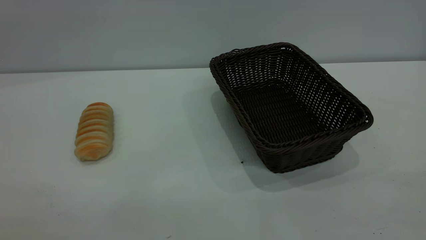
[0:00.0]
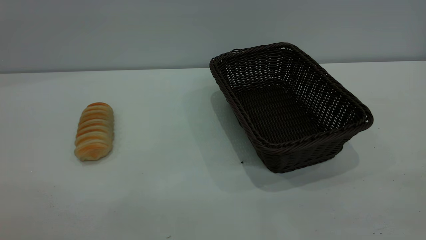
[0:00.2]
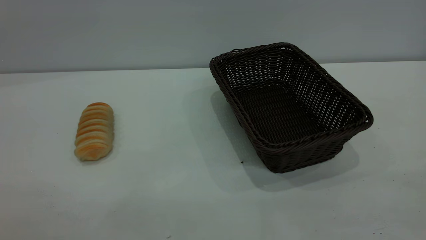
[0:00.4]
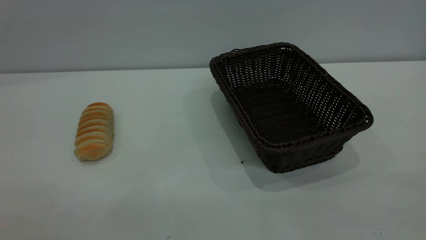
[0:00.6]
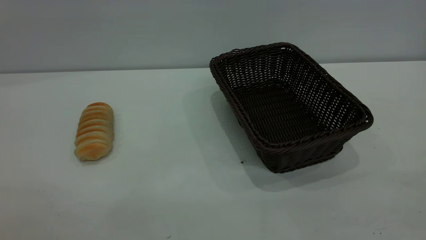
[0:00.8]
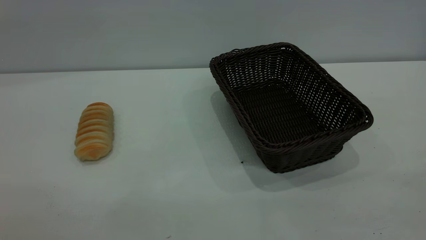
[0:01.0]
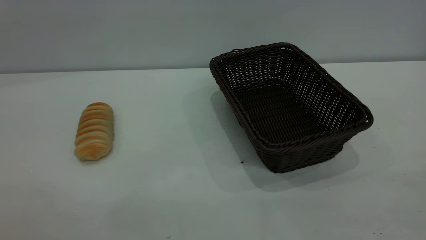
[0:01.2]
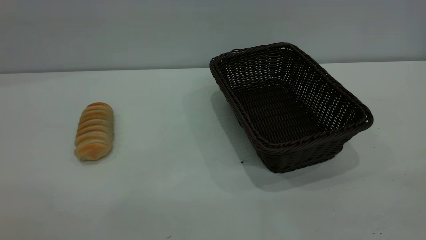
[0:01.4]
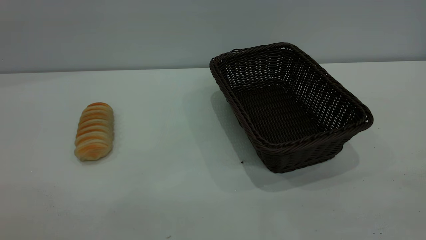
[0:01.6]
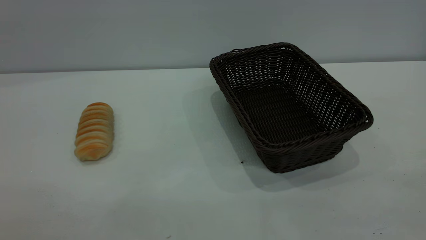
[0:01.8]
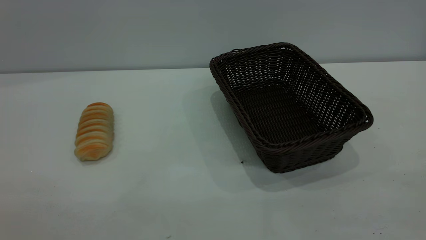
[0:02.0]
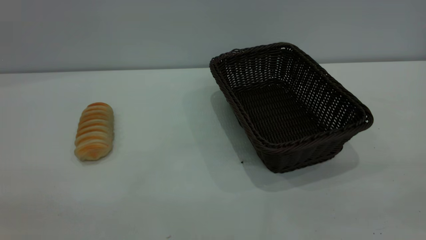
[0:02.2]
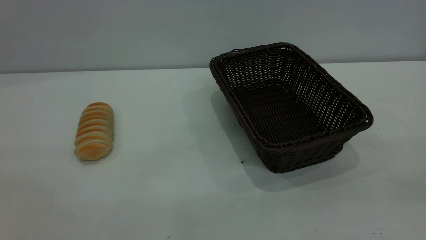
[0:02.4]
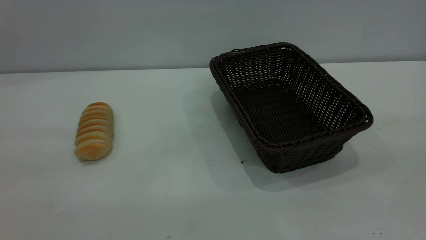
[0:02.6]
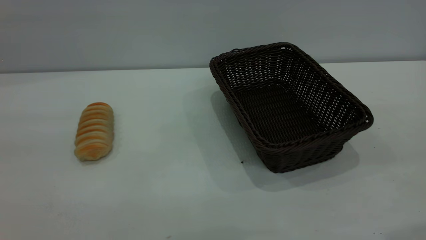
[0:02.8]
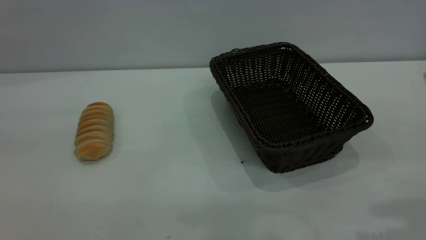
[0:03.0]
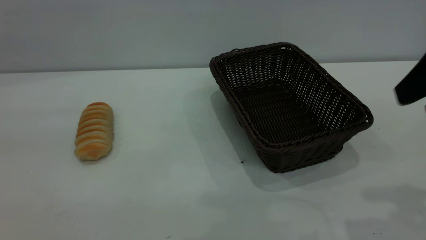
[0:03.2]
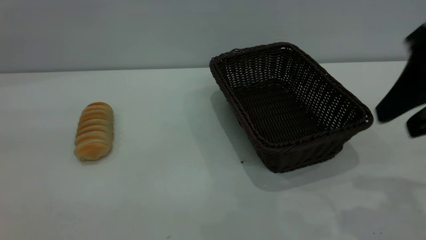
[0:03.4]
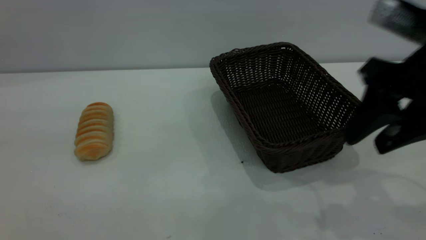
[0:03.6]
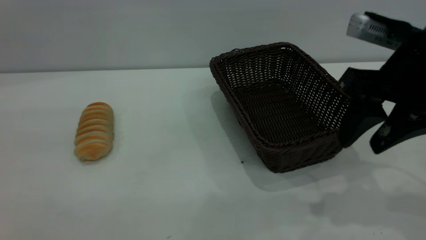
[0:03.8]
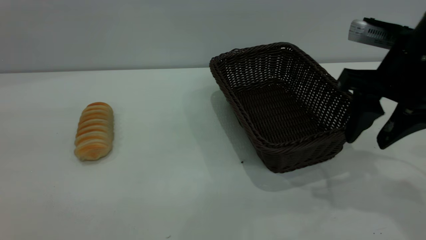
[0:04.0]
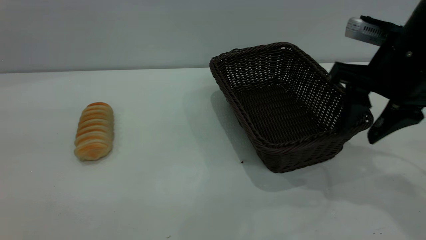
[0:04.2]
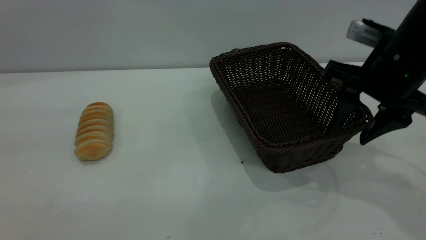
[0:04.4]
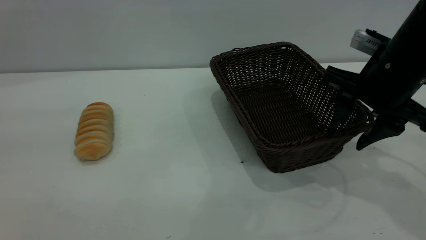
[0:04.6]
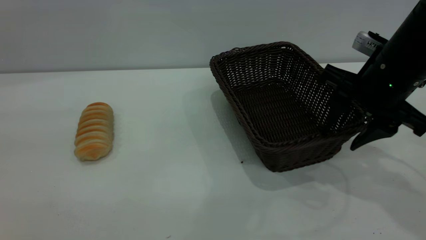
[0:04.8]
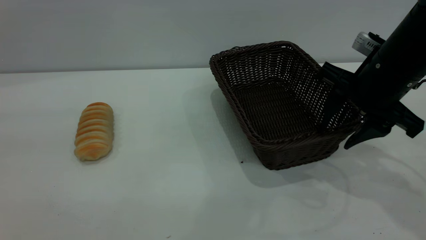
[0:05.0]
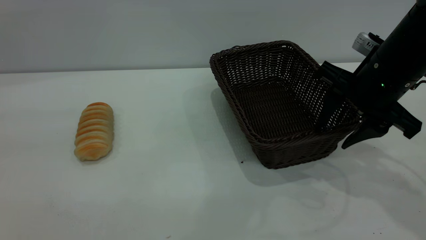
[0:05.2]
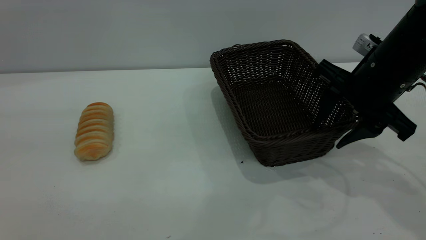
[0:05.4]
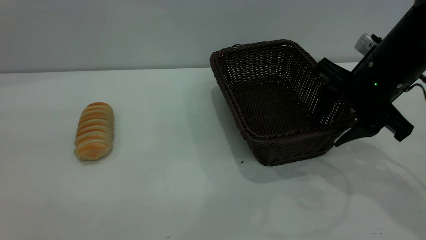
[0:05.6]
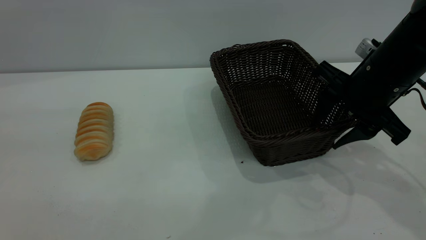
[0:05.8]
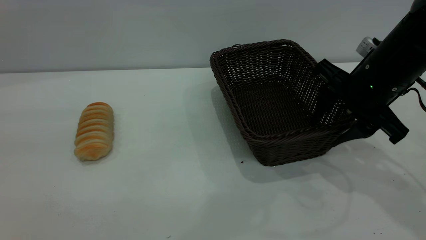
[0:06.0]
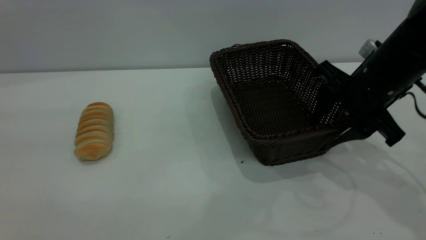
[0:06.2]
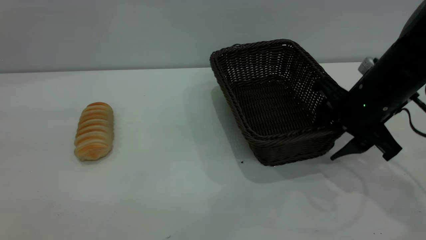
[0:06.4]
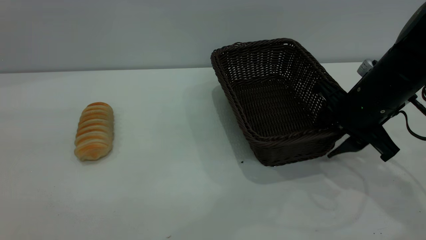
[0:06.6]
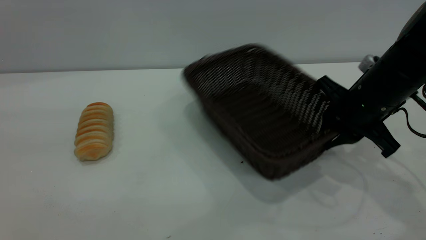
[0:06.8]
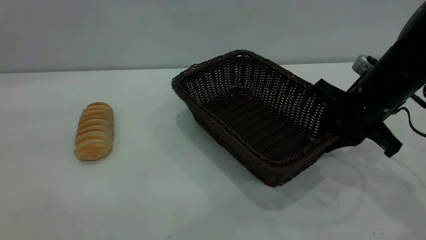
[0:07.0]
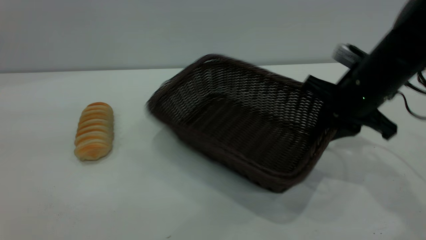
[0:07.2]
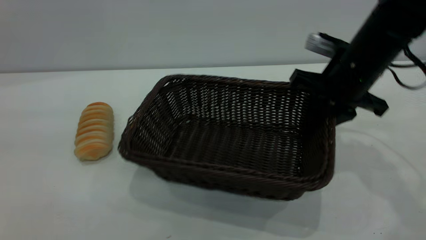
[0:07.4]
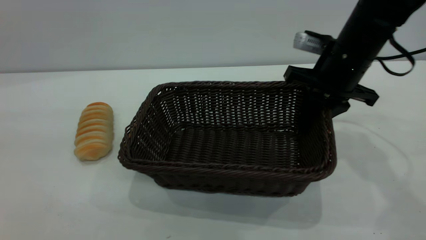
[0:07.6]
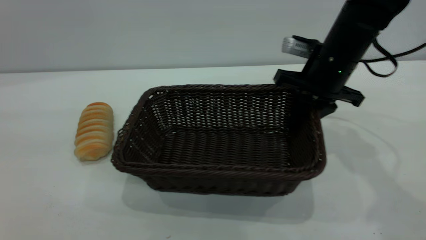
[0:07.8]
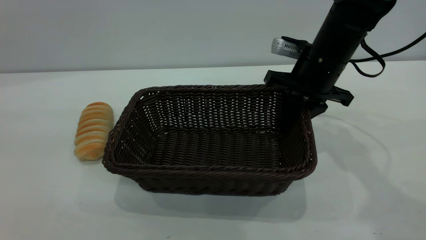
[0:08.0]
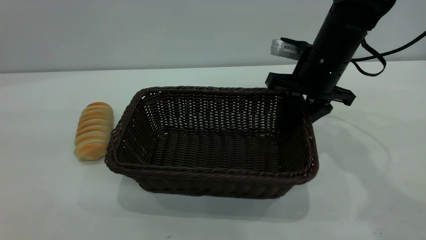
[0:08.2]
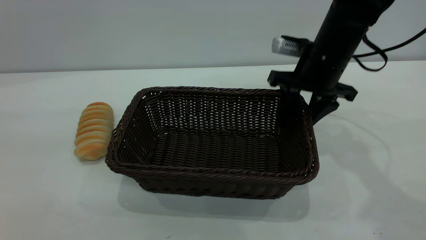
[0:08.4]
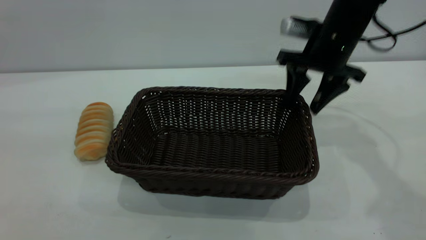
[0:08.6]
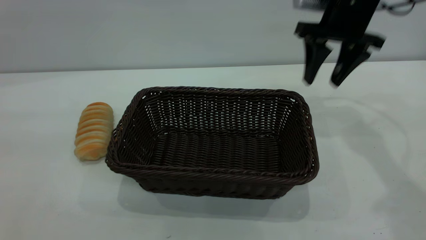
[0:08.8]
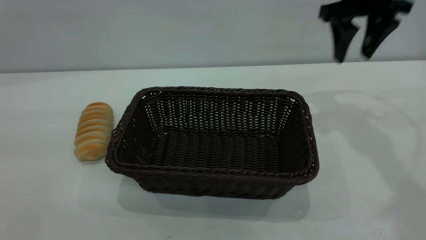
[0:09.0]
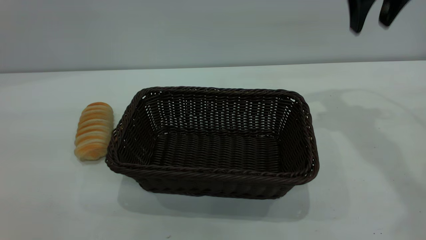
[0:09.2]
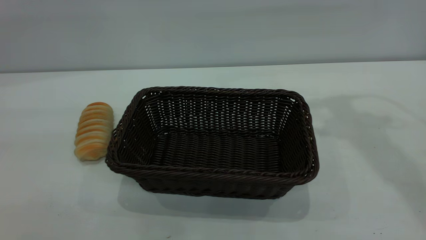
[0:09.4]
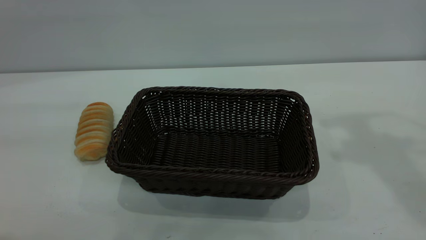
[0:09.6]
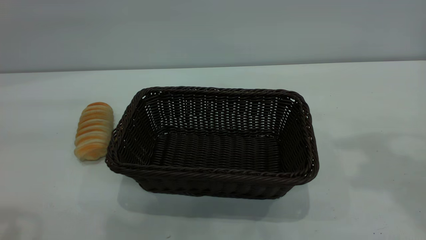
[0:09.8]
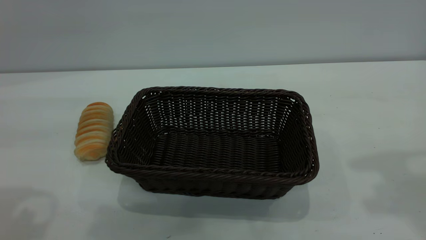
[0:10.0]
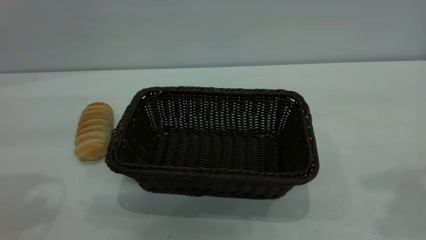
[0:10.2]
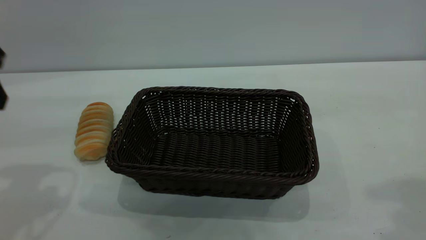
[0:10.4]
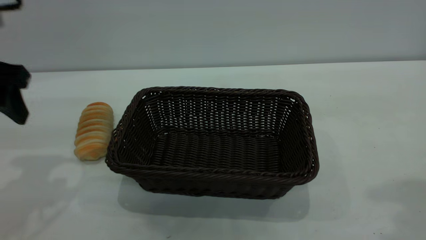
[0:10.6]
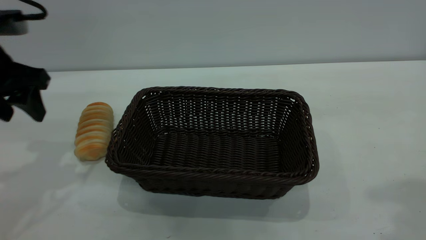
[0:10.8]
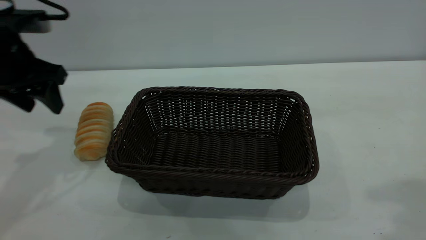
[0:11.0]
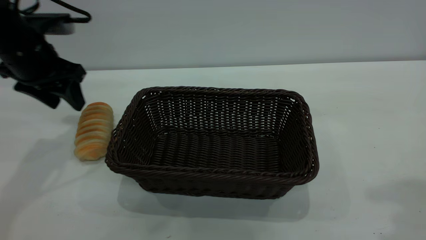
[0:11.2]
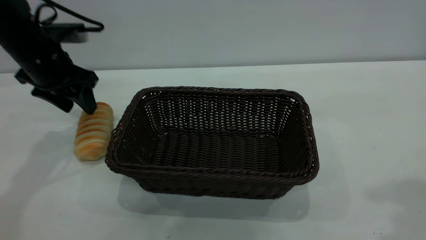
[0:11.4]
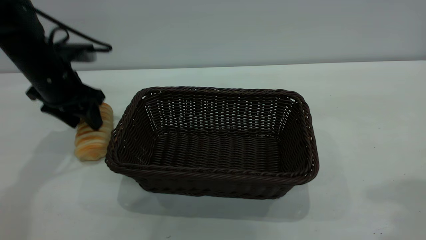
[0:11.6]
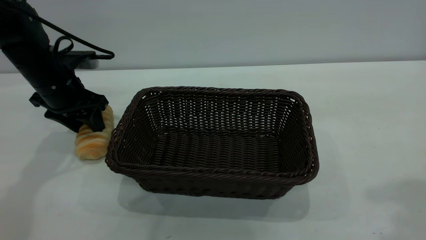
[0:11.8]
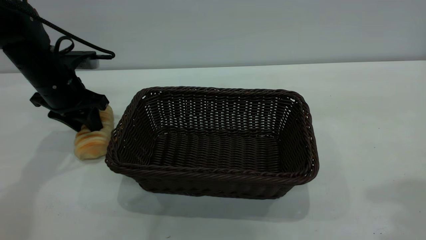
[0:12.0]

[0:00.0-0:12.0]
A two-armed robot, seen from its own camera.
Task of the whole recording: One hand grasps the black basket and places it in the middle of the table, while the other hand picks up the long bread and puts it into the black basket.
Step, 0:00.0 to 0:08.6: Move the basket to the center of view.
0:00.0 to 0:01.6: Neither gripper changes place.
0:03.0 to 0:04.4: The right gripper heads forward and downward, covering roughly 15 cm.
0:06.0 to 0:07.6: The right gripper travels forward by about 5 cm, and closes up.
0:07.6 to 0:09.0: The right gripper shifts approximately 10 cm upward and forward, and opens its fingers.
0:09.0 to 0:10.4: The left gripper shifts some 25 cm forward and downward. Meanwhile the right gripper heads backward and upward, covering approximately 30 cm.
0:10.4 to 0:12.0: The left gripper moves forward and downward, about 20 cm, and closes its fingers.

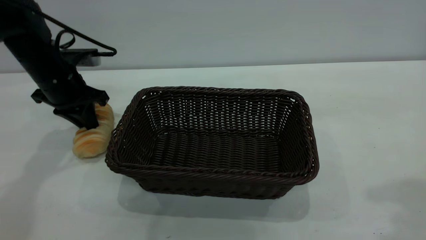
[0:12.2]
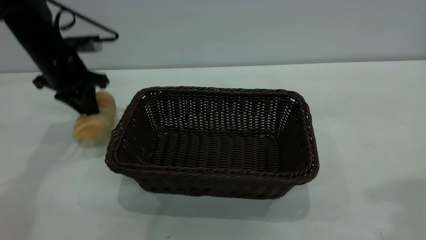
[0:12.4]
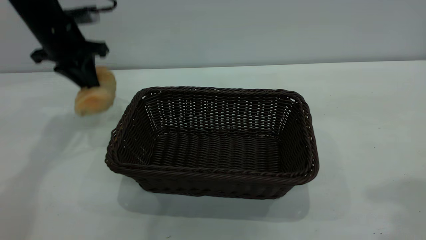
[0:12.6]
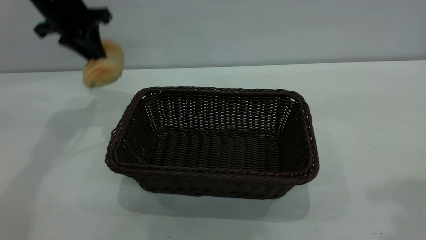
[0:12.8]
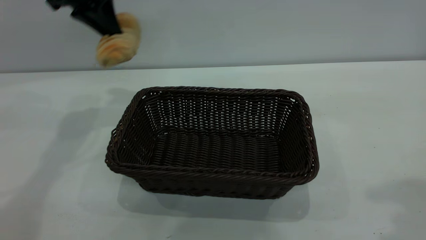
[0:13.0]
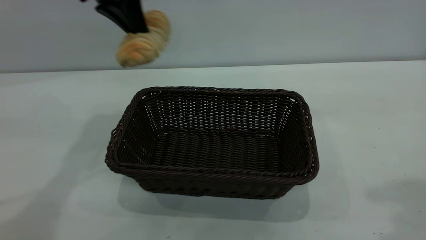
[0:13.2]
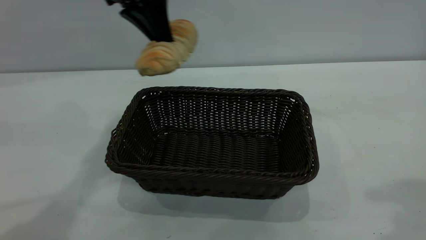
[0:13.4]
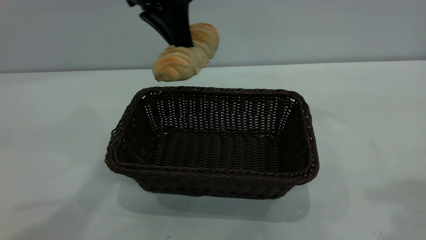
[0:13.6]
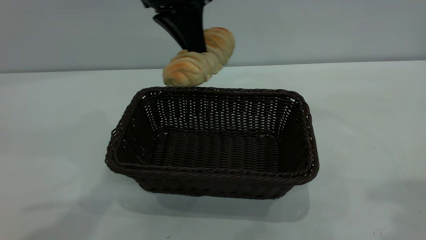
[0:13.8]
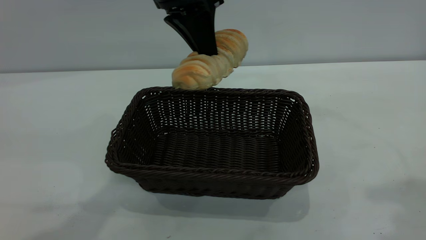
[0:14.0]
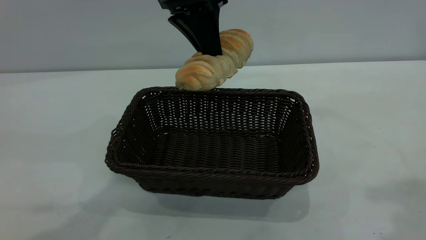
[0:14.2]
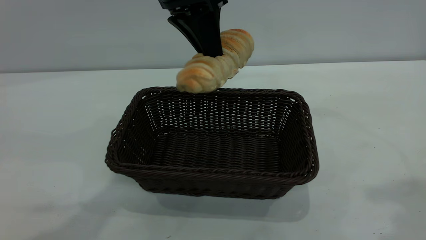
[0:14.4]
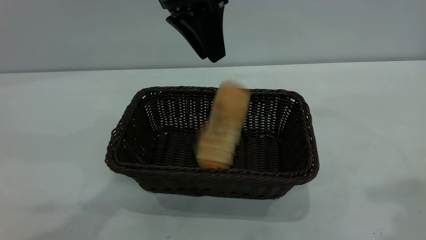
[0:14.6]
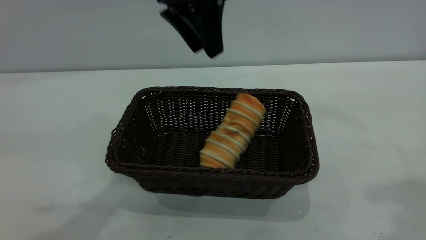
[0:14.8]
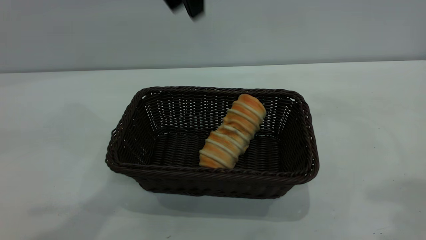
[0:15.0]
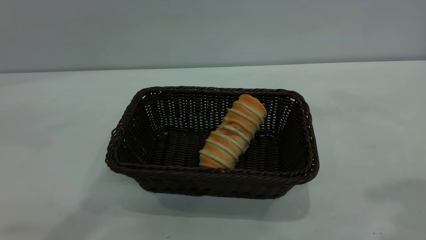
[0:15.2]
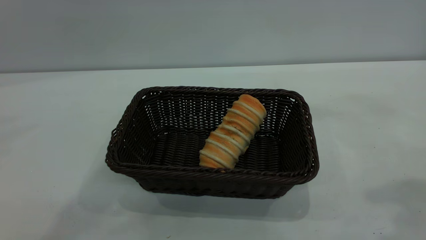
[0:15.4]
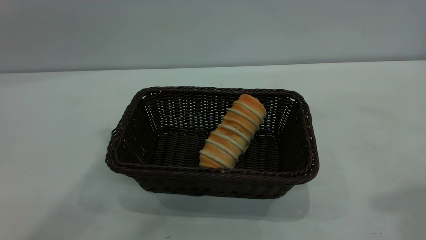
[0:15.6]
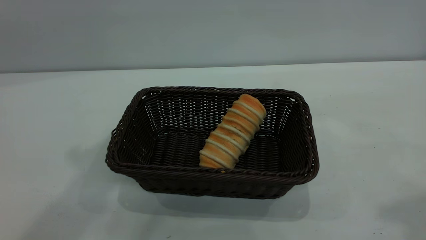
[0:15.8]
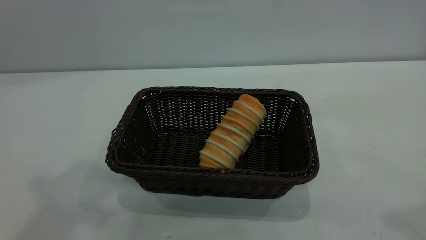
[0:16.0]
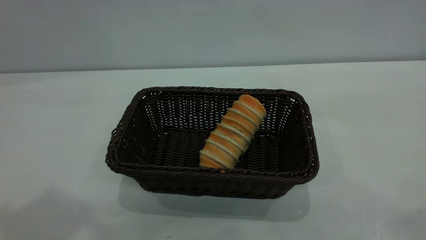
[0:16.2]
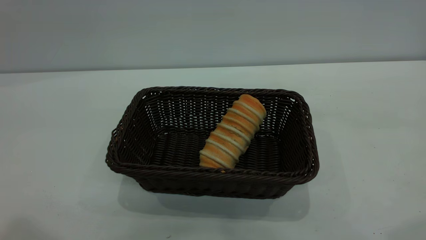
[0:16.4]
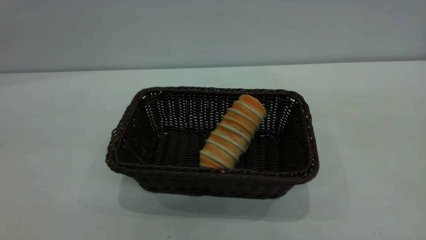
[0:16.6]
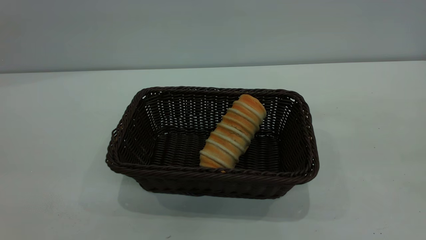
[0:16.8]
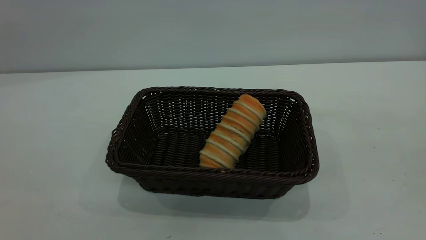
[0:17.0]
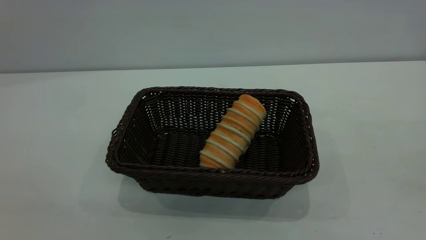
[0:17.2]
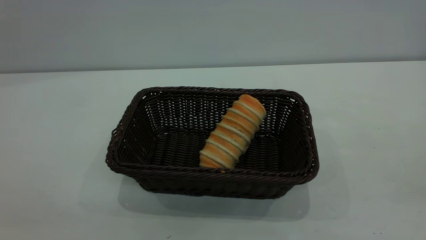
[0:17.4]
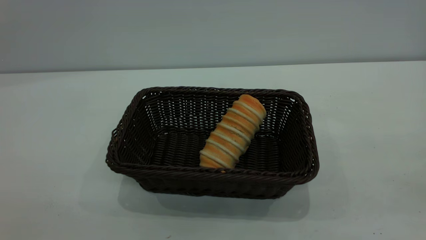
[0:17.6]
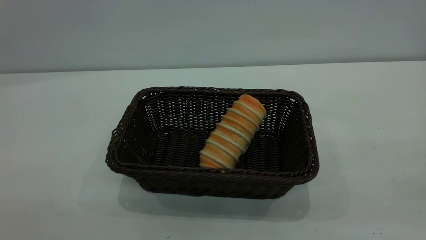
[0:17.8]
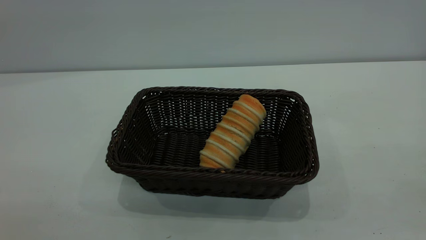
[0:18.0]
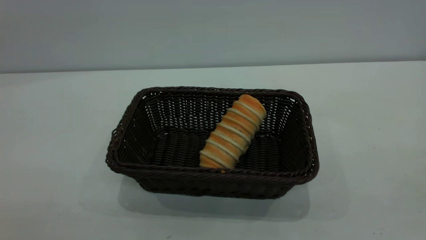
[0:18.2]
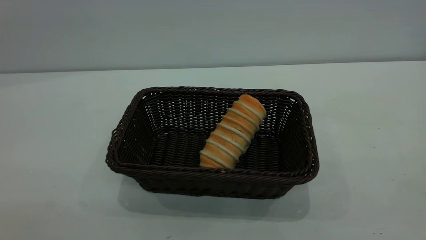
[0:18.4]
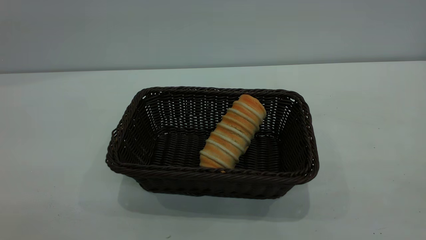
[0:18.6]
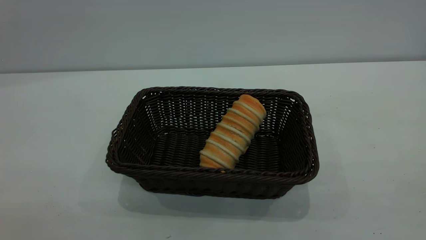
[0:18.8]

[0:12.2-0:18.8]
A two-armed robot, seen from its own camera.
Task of the whole recording: One hand grasps the black basket and places it in the middle of the table, while the other hand picks up the long bread and puts it into the black basket.
Step, 0:12.6 to 0:14.6: place the bread into the basket.
0:12.2 to 0:13.8: The left gripper shifts approximately 25 cm to the right and upward.
0:13.8 to 0:15.4: The left gripper is displaced upward by some 20 cm, and opens.
